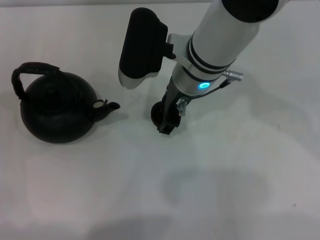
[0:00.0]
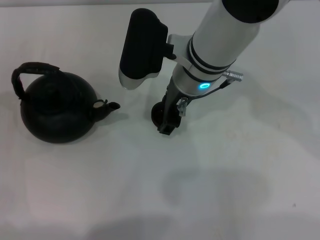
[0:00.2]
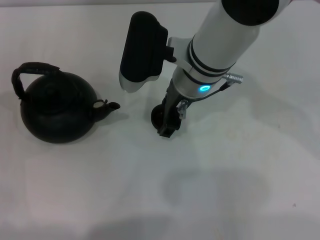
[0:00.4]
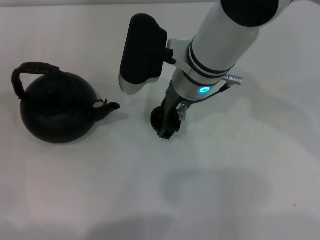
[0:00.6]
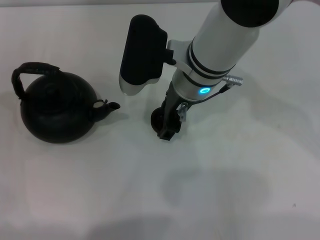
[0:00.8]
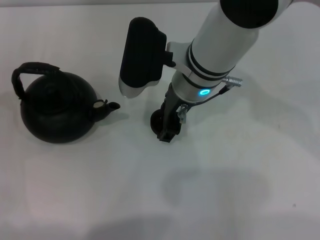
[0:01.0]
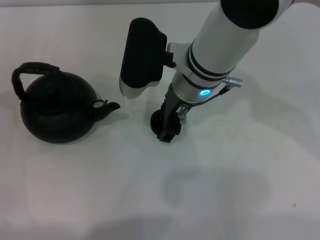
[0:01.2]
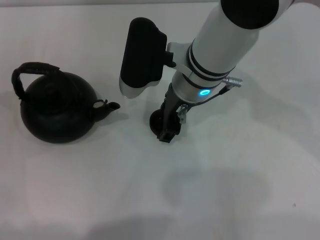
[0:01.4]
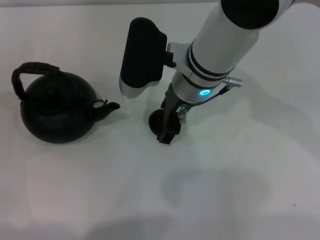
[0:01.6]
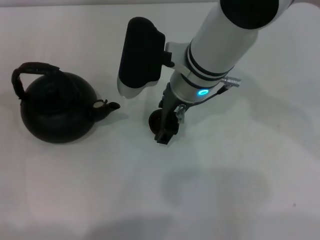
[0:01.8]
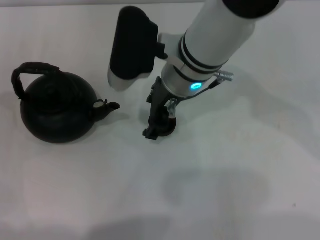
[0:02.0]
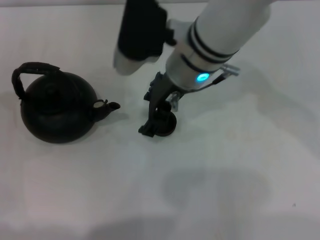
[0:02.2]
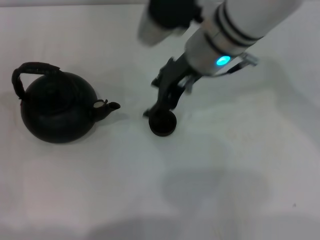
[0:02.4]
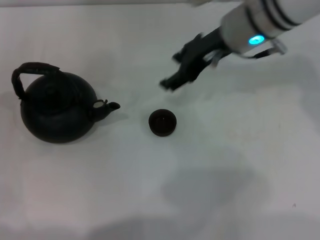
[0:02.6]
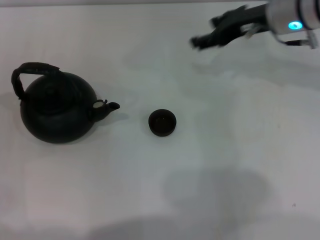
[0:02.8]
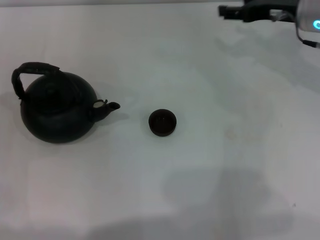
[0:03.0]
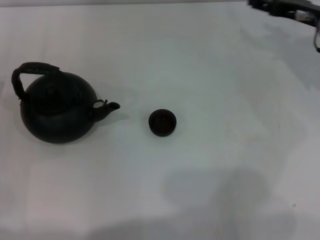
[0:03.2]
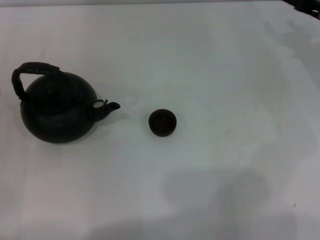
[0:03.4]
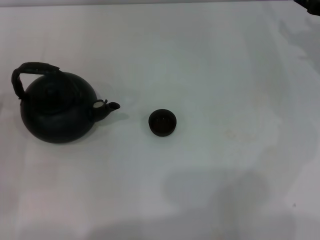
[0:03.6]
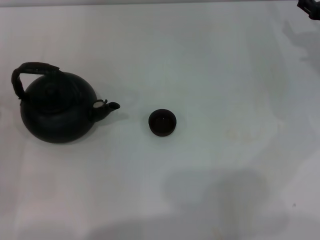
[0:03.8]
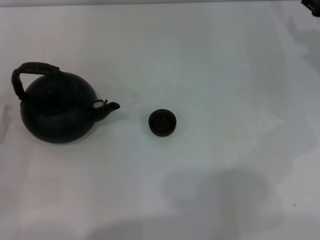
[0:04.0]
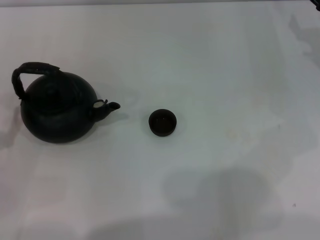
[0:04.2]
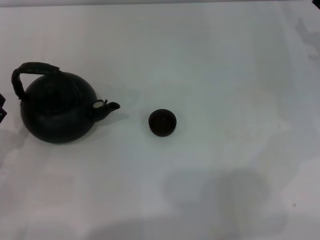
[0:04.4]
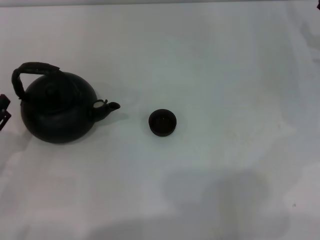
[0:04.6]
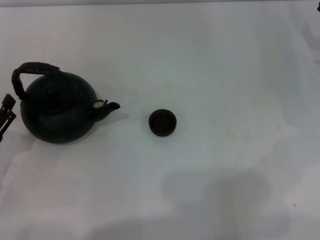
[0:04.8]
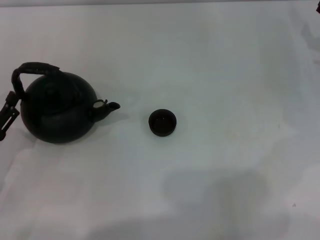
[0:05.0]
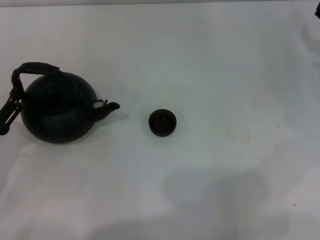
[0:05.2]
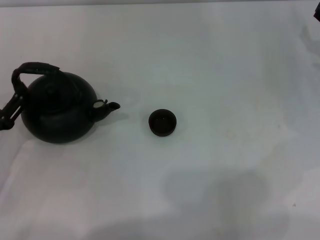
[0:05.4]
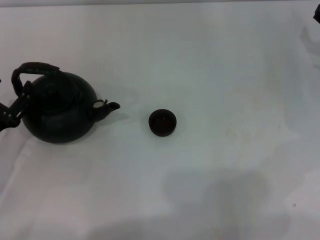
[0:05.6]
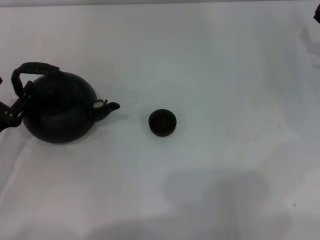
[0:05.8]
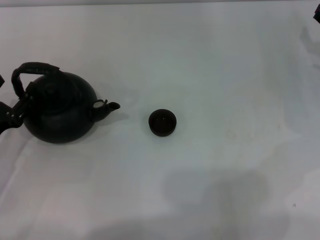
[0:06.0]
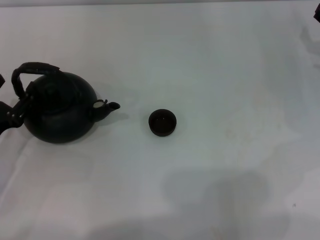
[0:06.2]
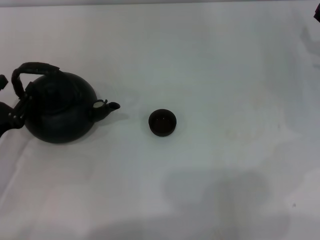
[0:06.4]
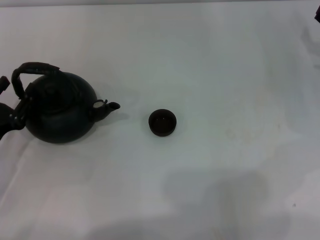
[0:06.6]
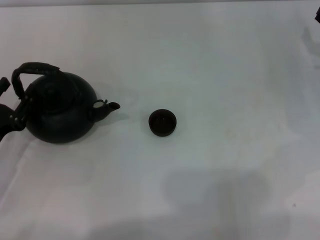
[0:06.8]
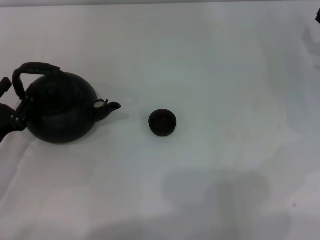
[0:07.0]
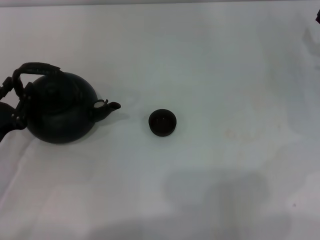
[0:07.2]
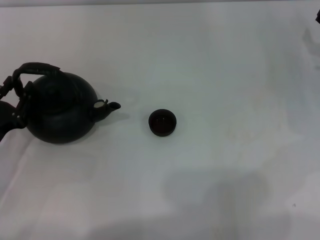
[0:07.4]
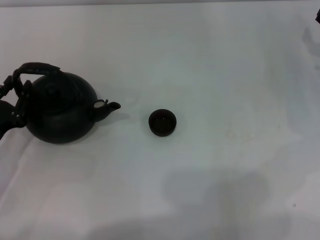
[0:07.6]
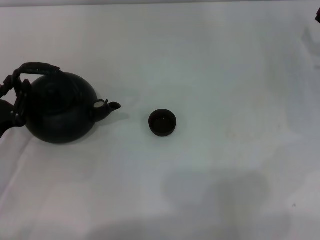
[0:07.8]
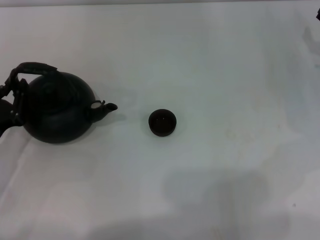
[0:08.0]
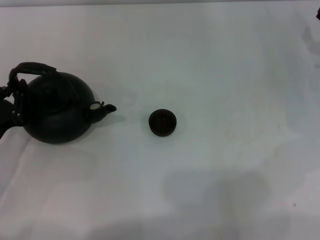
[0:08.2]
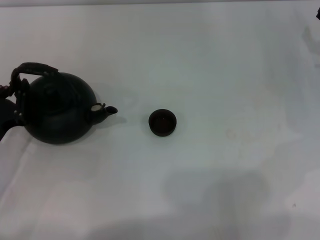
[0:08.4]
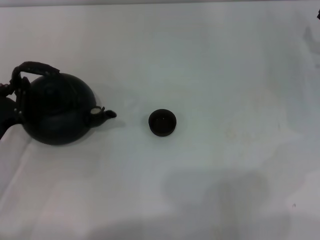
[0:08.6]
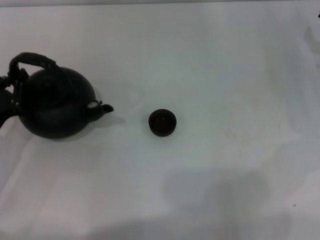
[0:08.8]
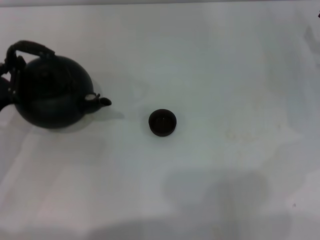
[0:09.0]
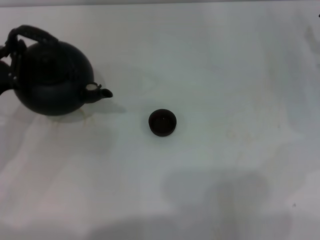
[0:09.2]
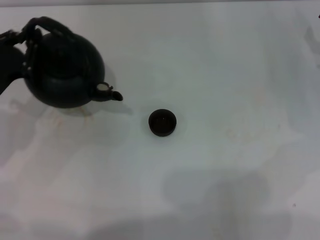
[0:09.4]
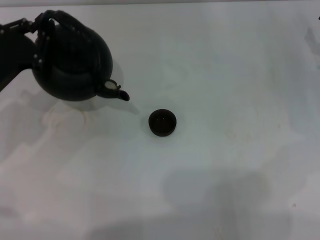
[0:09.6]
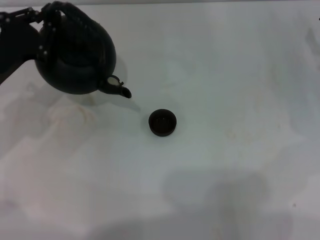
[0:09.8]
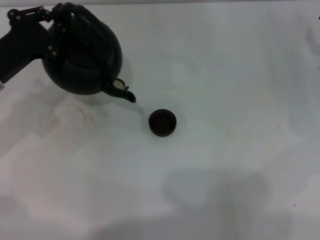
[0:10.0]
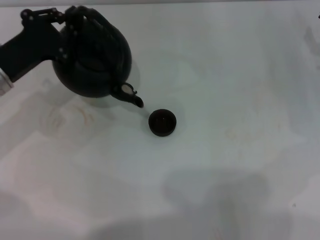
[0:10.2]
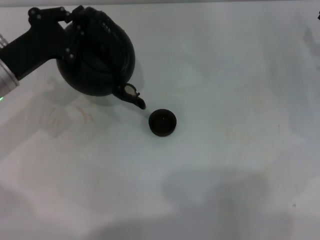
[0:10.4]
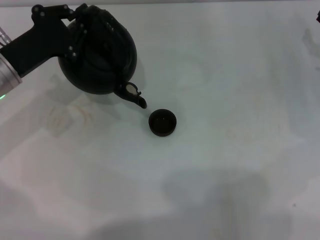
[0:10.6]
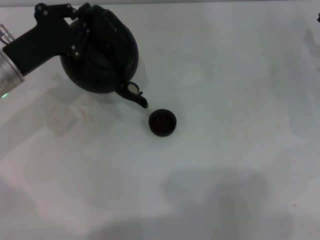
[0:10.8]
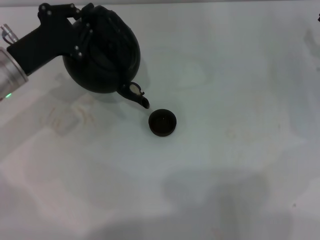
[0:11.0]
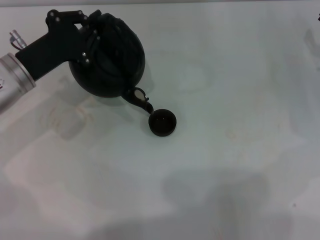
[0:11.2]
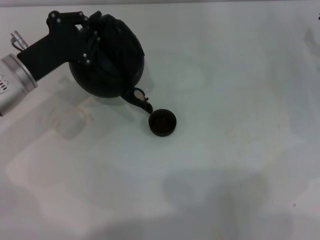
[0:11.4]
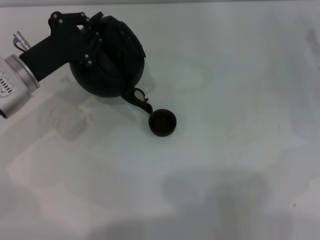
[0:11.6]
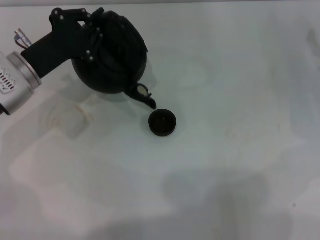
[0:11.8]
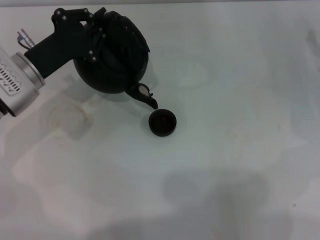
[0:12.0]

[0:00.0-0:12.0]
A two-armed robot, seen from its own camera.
Task of the whole recording: Grasp the handle of the teapot with one hand and pour tea into the teacup.
Step, 0:00.0 to 0:02.4: Place the teacup in the center of view with the right gripper.
Step, 0:02.6 to 0:08.8: Pick up the teapot with the left gripper.
0:00.0 to 0:01.6: Both grippers stay about where they are.
0:01.6 to 0:03.0: The right gripper heads to the right, covering approximately 20 cm.
0:03.0 to 0:04.4: The right gripper travels to the right and downward by approximately 10 cm.
0:04.4 to 0:06.0: There are only small adjustments of the grippers.
0:06.0 to 0:07.6: The left gripper closes up.
0:07.6 to 0:09.0: The left gripper closes its fingers.
0:09.0 to 0:10.4: The left gripper travels forward and upward by some 10 cm.
0:10.4 to 0:12.0: The grippers move only a little.

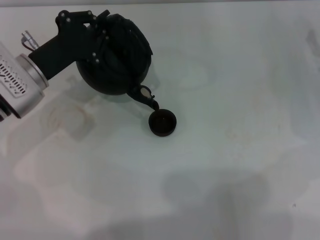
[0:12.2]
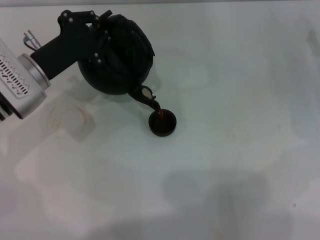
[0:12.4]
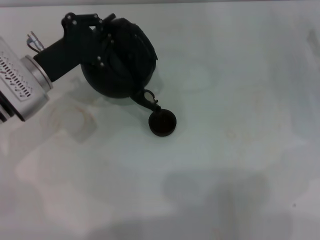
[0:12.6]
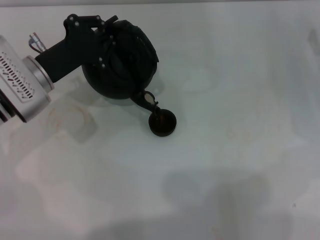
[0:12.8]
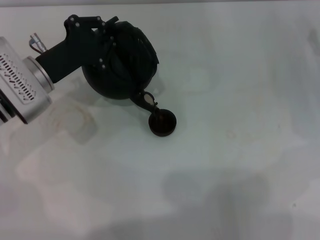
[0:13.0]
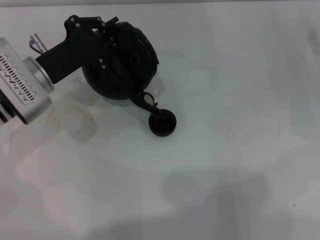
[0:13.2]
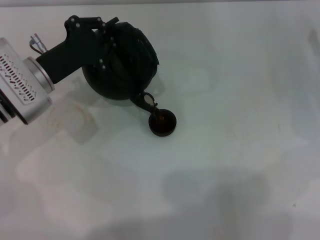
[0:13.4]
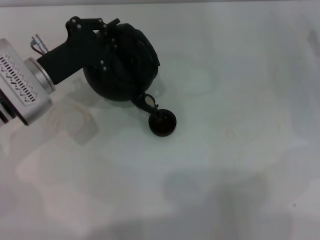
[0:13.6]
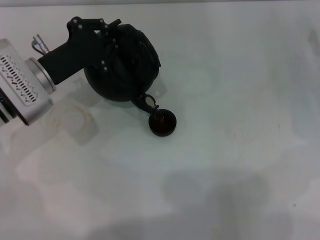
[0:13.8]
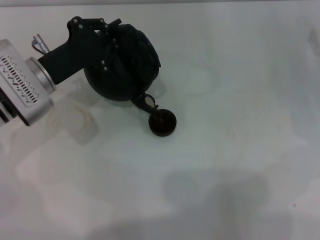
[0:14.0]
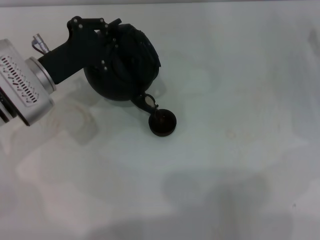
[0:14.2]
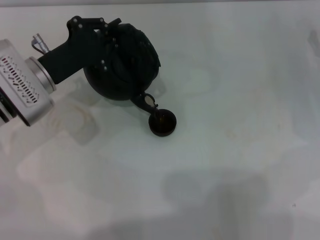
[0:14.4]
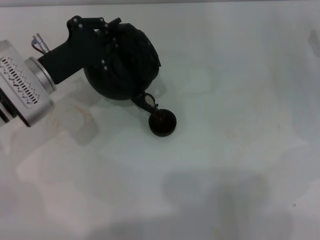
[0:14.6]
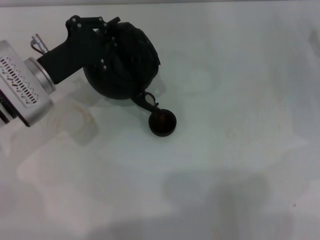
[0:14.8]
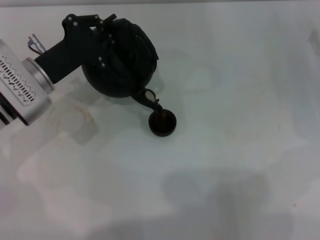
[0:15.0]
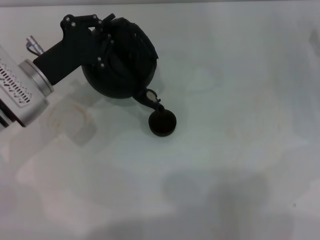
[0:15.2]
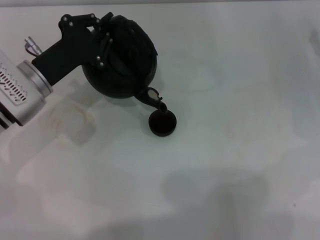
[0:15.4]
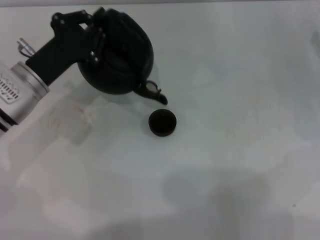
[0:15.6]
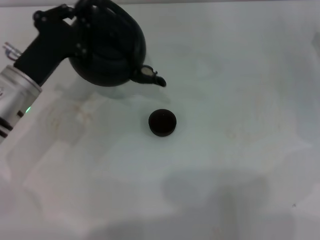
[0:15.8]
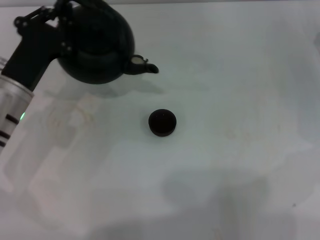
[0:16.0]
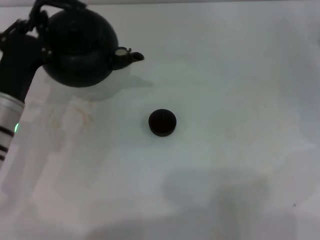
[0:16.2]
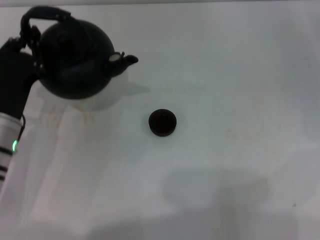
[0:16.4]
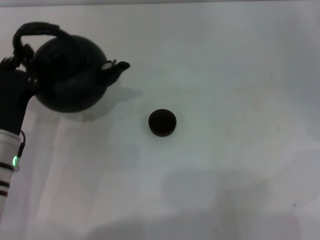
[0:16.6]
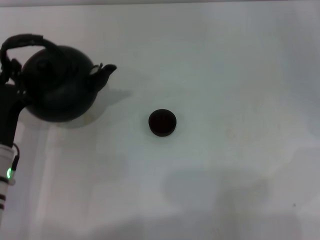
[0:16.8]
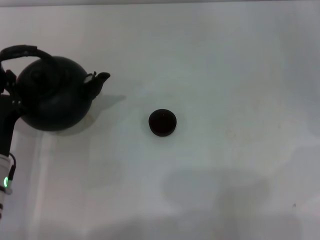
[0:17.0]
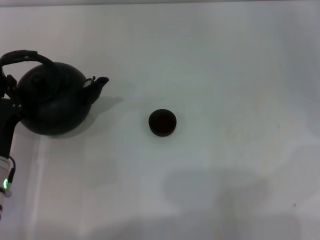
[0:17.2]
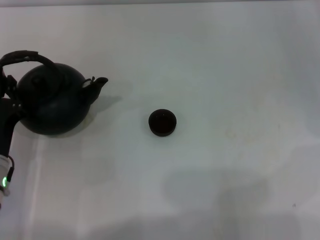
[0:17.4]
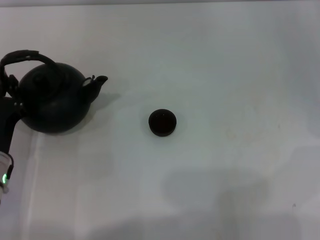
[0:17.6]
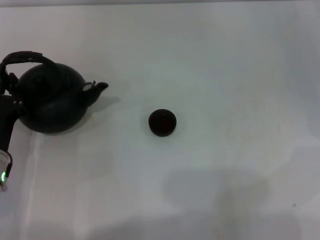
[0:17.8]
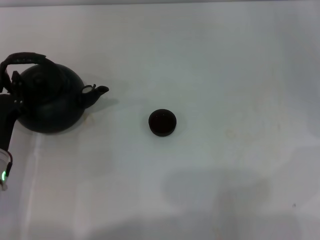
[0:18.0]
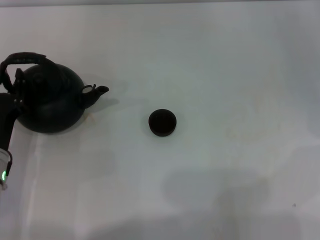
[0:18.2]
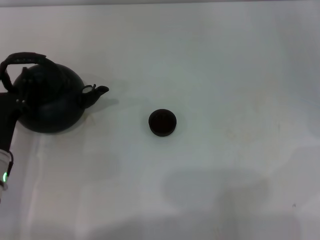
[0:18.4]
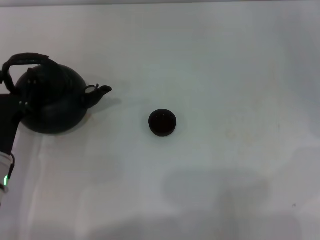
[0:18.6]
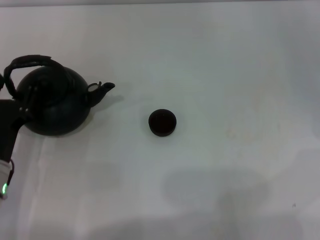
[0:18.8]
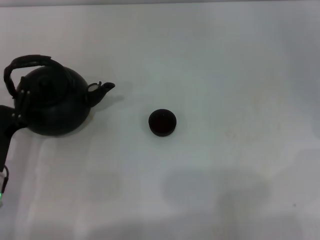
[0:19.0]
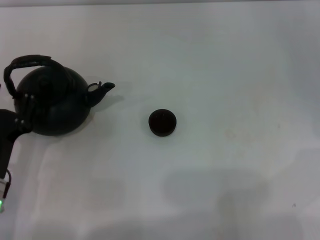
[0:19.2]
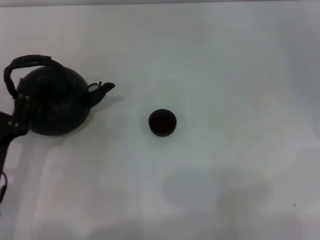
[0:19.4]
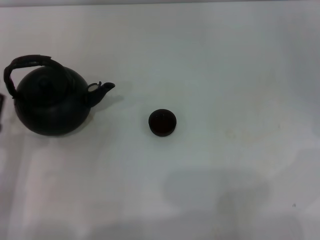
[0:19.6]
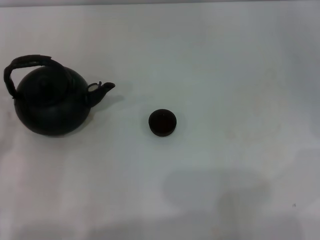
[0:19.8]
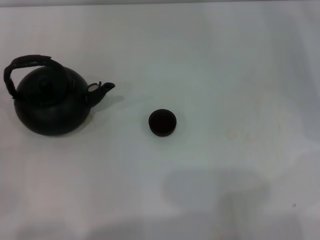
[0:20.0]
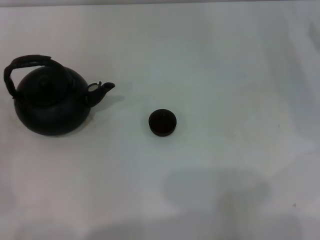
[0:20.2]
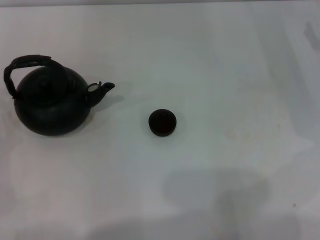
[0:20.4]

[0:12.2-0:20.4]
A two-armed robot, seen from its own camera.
Task of the whole recording: Grasp the handle of the teapot with one hand and pour tea into the teacup.
Step, 0:12.2 to 0:15.6: Pour tea into the teacup with the left gripper.
Step, 0:15.8 to 0:19.2: Put down the teapot with the left gripper.
0:12.2 to 0:13.8: Both grippers stay put.
0:13.8 to 0:15.4: The grippers make only small movements.
0:15.4 to 0:17.2: The left gripper moves backward and downward, roughly 15 cm.
0:17.2 to 0:18.8: The left gripper opens its fingers.
0:18.8 to 0:20.4: The left gripper moves to the left, some 10 cm.
